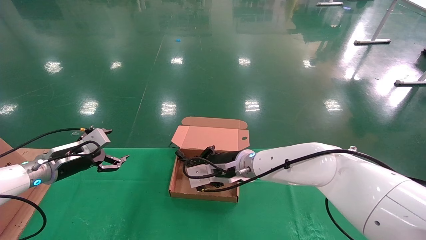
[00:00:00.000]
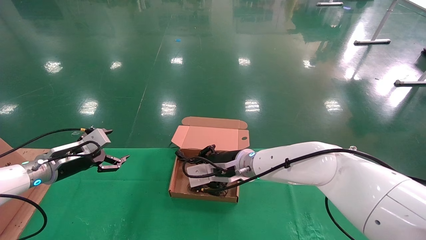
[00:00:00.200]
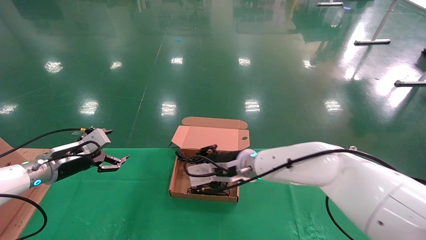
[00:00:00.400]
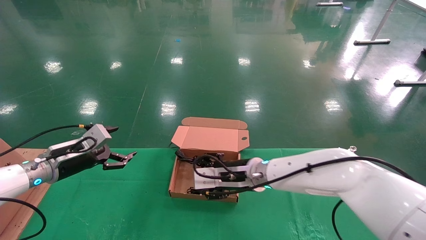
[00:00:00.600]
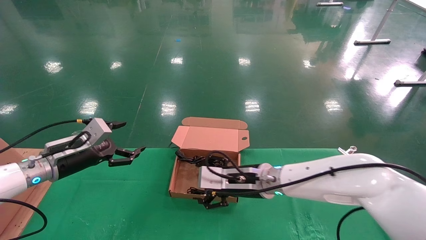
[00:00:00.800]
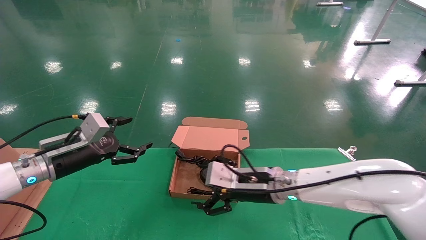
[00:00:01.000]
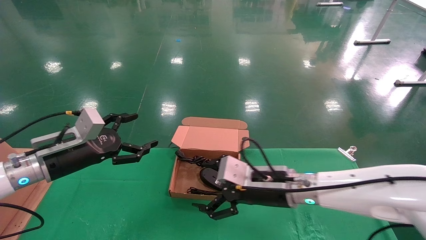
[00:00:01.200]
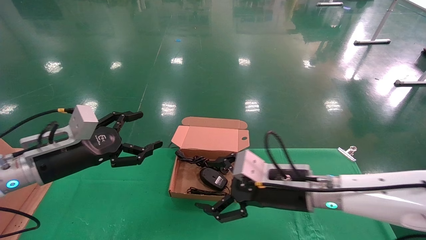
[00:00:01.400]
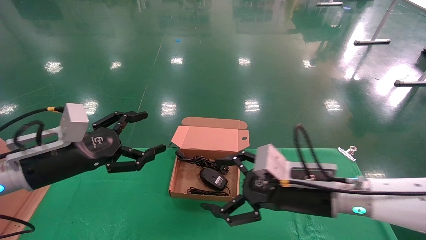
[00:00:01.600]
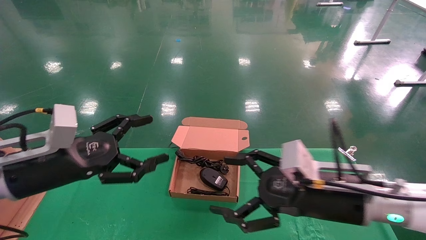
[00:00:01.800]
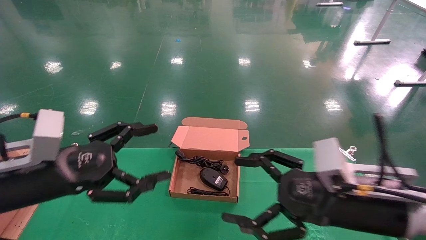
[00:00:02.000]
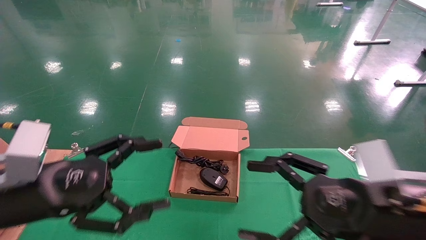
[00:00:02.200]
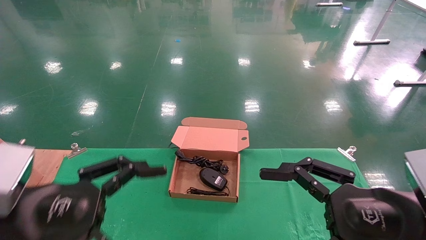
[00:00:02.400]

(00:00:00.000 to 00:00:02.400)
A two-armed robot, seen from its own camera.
00:00:00.000 - 00:00:01.200: The right gripper moves to the right and backward, some 10 cm, and opens; the left gripper goes approximately 10 cm backward and to the right.
00:00:01.200 - 00:00:02.400: The left gripper travels backward by some 20 cm. The right gripper is displaced backward and to the right by some 20 cm.
